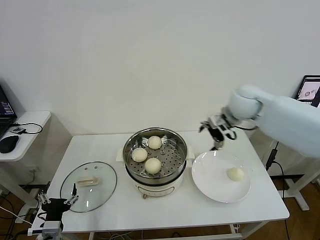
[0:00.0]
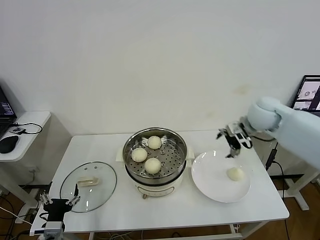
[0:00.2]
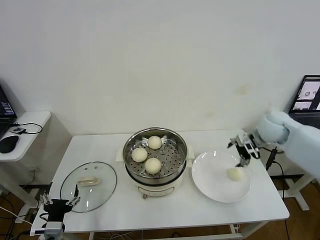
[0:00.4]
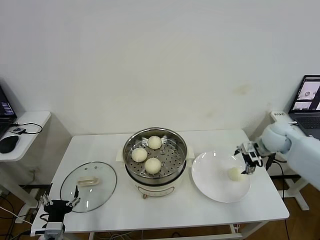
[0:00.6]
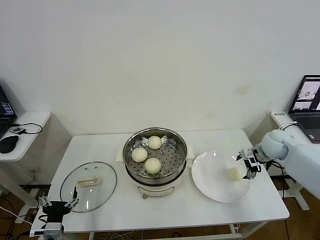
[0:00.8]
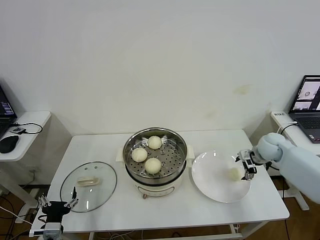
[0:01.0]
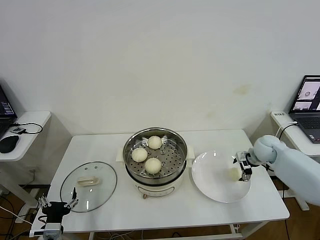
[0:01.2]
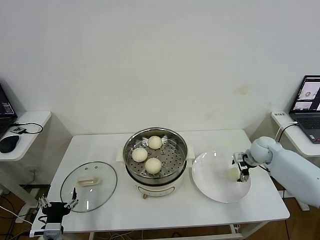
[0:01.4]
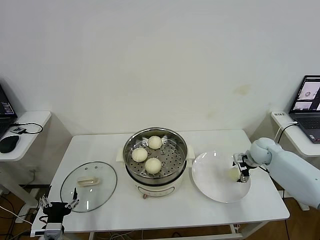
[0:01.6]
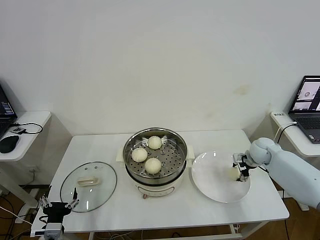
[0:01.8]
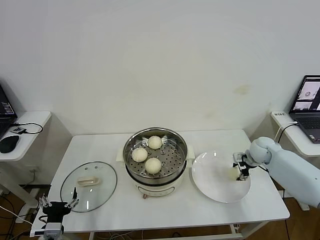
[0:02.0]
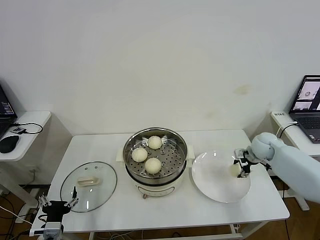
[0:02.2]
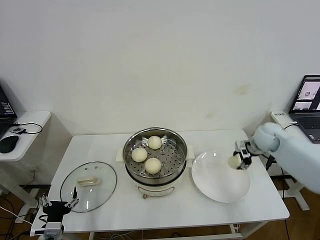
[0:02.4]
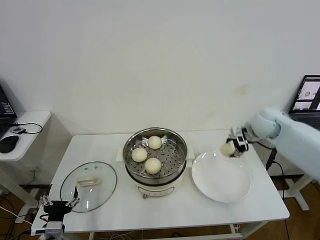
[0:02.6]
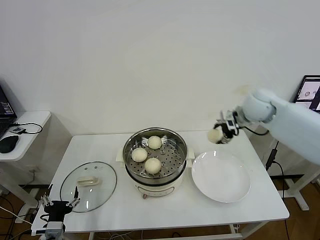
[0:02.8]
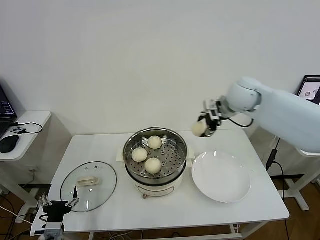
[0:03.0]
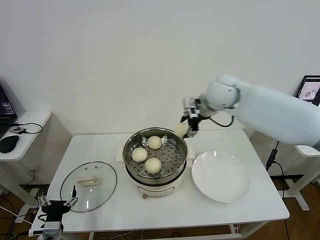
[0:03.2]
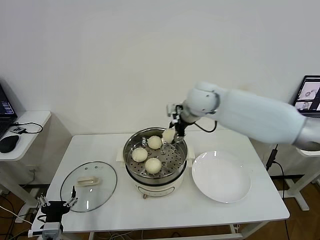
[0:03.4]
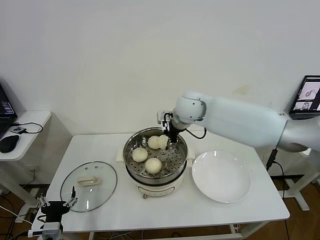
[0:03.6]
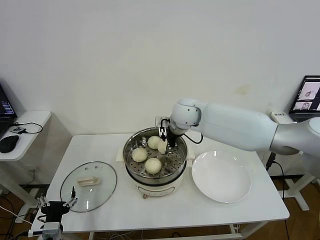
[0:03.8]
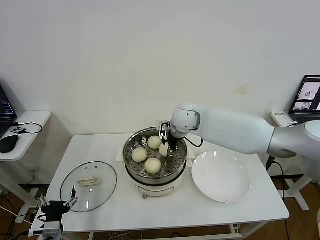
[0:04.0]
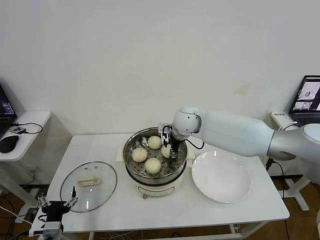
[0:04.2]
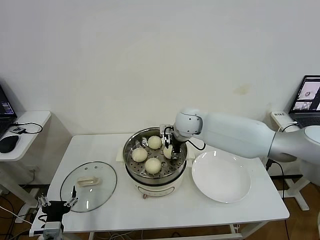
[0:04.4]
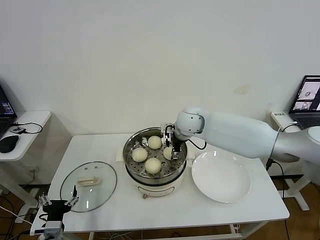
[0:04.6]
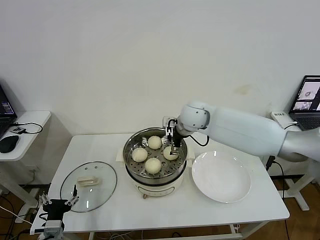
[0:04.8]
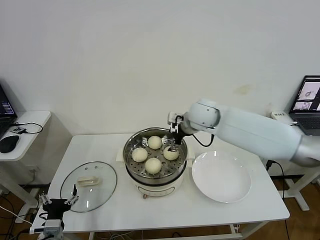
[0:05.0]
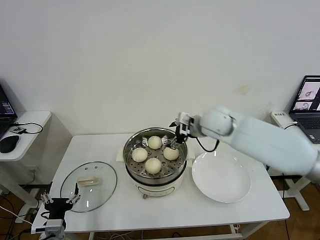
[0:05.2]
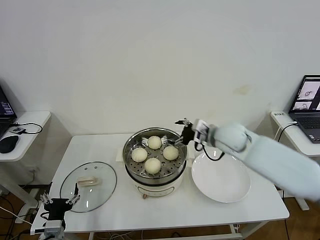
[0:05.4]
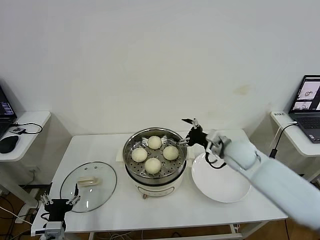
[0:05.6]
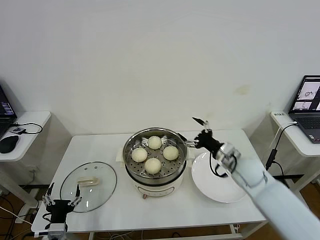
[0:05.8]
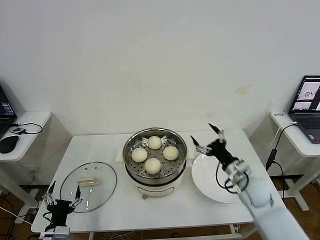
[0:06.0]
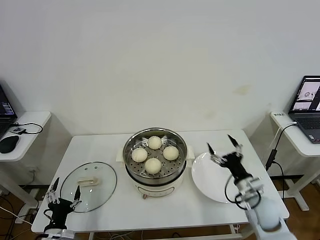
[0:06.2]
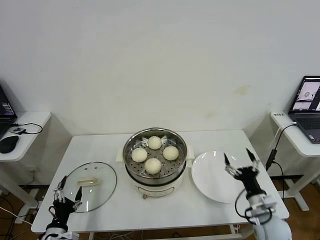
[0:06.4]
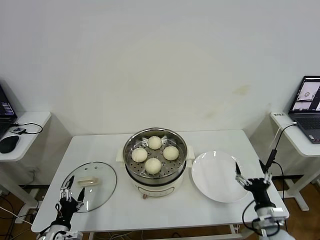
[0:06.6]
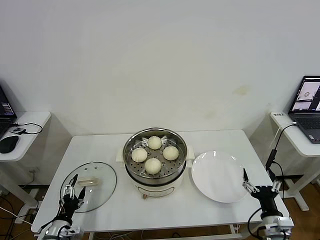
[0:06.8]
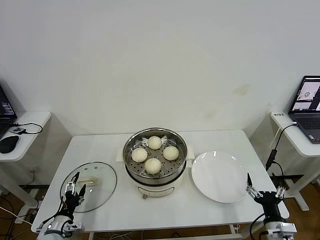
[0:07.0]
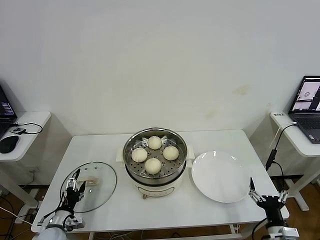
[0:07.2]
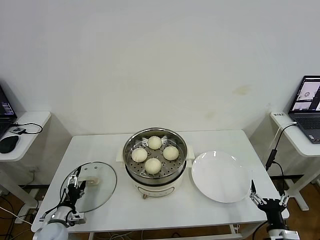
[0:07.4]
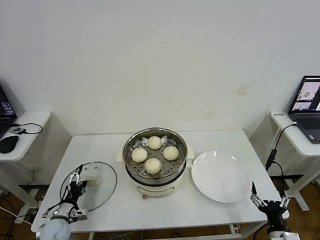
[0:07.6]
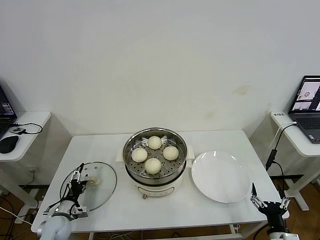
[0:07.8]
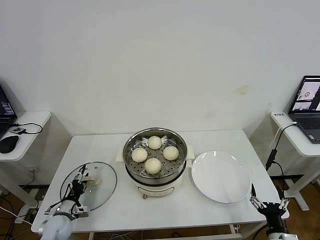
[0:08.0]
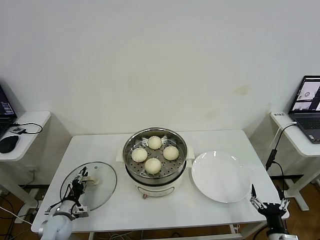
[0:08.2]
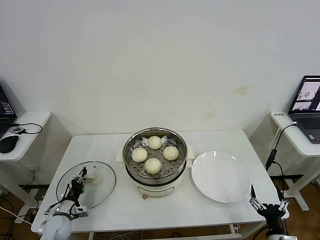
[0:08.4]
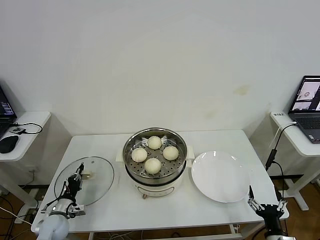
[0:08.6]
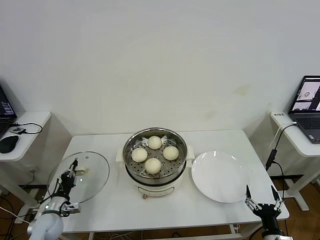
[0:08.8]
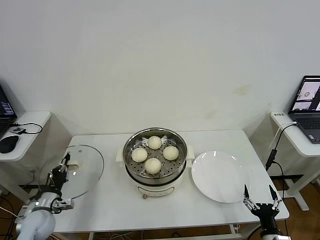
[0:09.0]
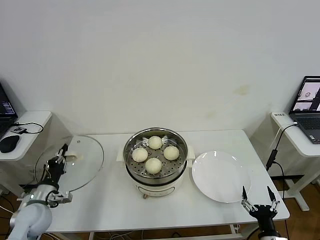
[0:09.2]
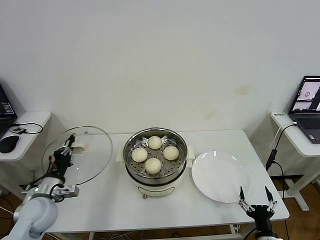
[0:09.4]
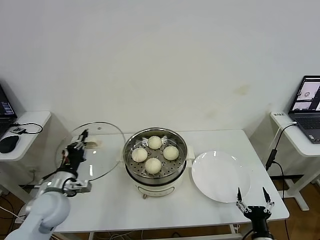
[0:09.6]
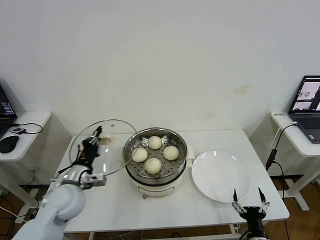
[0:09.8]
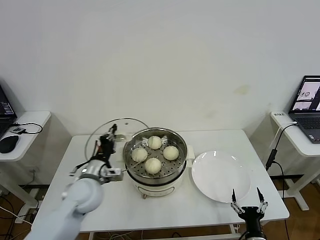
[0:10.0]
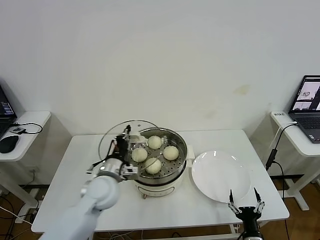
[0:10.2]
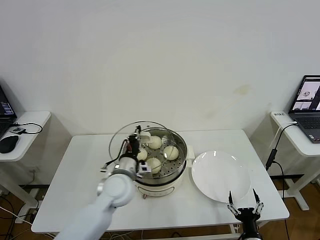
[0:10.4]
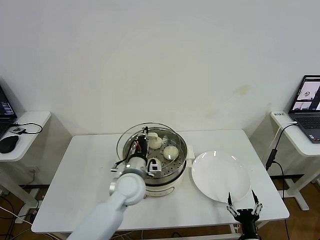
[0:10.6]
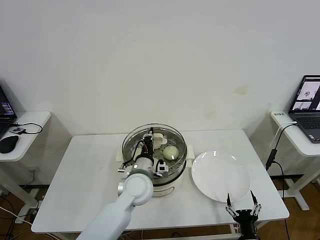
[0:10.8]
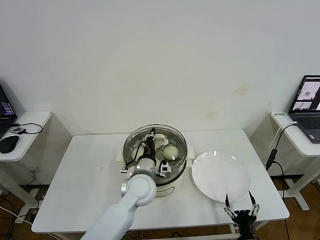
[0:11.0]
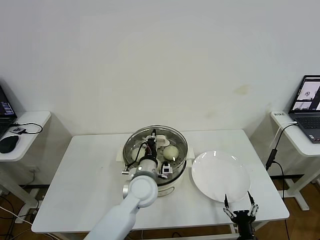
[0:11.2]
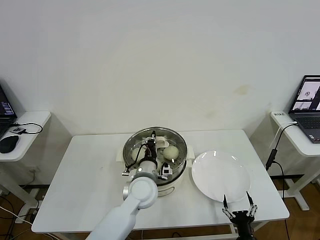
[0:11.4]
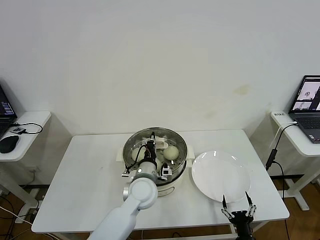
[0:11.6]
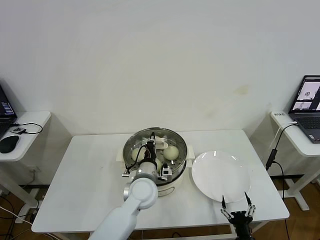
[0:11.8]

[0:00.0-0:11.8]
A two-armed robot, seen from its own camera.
Step, 0:00.0 to 0:02.0: Grasp the baozi in the plate with right gripper.
Step, 0:02.2 to 0:04.6: Place the baozi on the steamer with right gripper.
Step, 0:04.8 to 0:08.6: Grasp the pot lid with left gripper.
0:00.0 to 0:01.4: The right gripper travels downward and to the right by approximately 25 cm.
0:01.4 to 0:03.0: The right gripper goes approximately 30 cm upward and to the left, and closes.
0:03.0 to 0:04.4: The right gripper moves to the left and downward, some 20 cm.
0:04.4 to 0:06.0: The right gripper goes approximately 30 cm to the right, backward and downward, and opens.
0:06.0 to 0:07.4: The left gripper travels forward, downward and to the left by about 10 cm. Meanwhile the right gripper moves backward and downward, about 20 cm.
0:07.4 to 0:08.8: The left gripper closes its fingers.
0:08.8 to 0:10.4: The left gripper heads to the right and upward, covering about 30 cm, while the right gripper shifts some 5 cm to the left.
0:10.4 to 0:11.8: The left gripper is displaced to the right by about 10 cm.

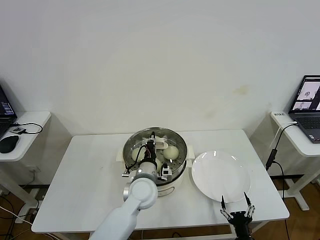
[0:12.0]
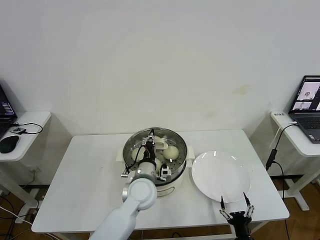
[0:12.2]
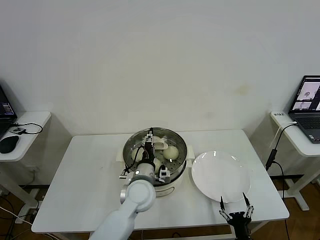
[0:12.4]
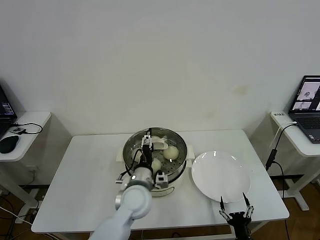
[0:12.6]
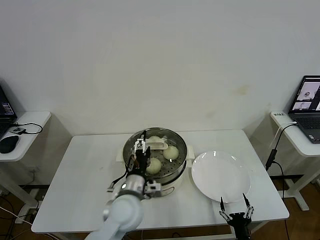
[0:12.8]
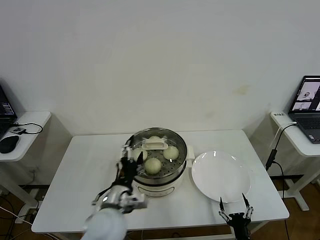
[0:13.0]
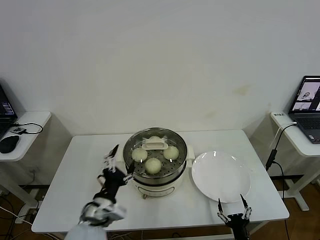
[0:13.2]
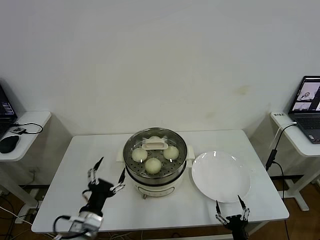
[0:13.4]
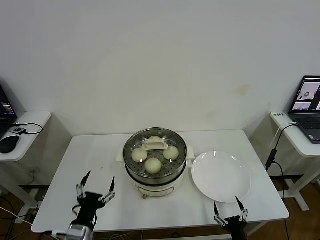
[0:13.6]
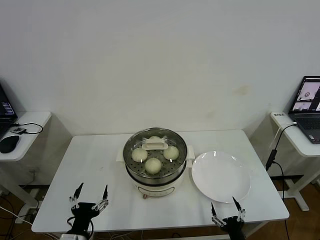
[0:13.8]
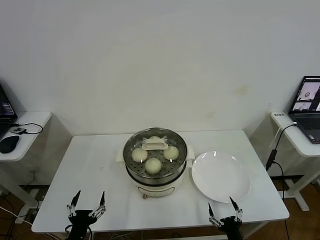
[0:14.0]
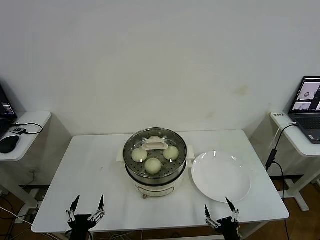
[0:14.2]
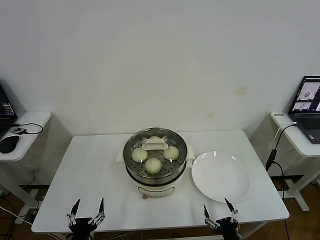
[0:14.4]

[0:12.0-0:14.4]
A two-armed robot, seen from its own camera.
0:12.0 to 0:13.2: The left gripper shifts about 20 cm backward and to the left, and opens.
0:13.2 to 0:14.4: The left gripper moves downward, backward and to the left, roughly 20 cm.
